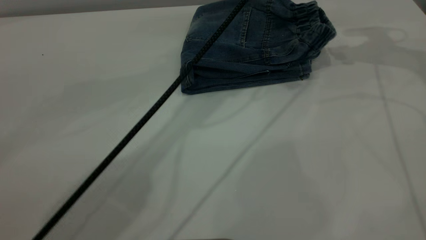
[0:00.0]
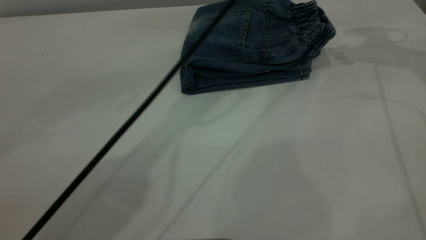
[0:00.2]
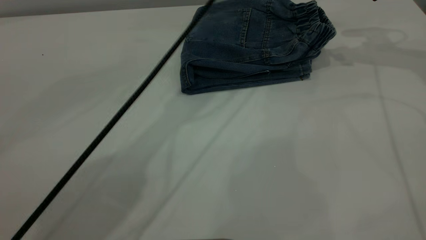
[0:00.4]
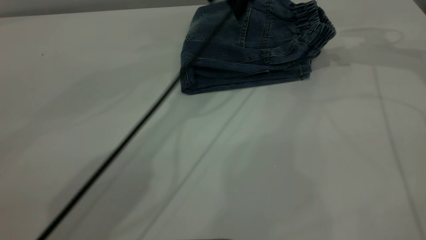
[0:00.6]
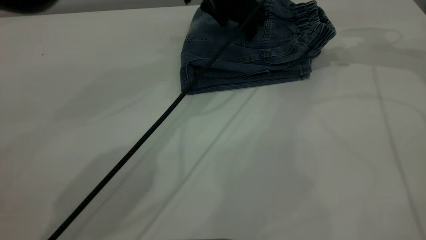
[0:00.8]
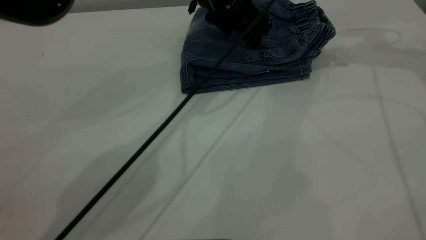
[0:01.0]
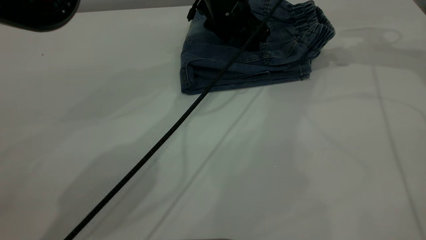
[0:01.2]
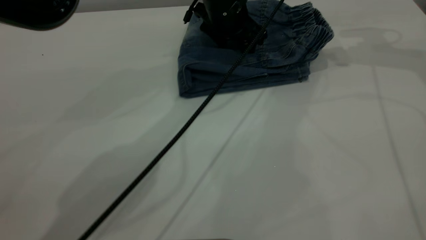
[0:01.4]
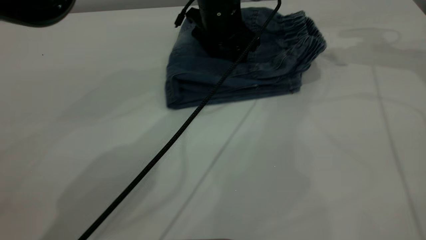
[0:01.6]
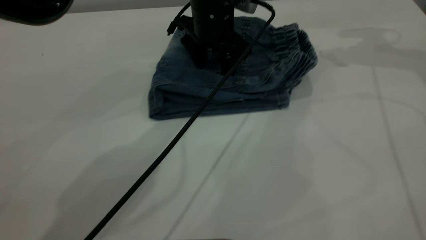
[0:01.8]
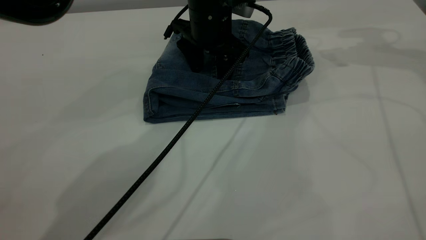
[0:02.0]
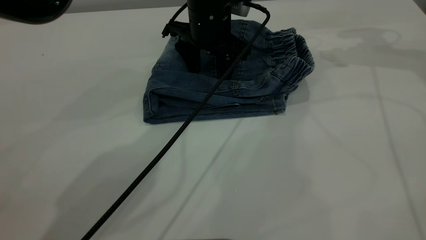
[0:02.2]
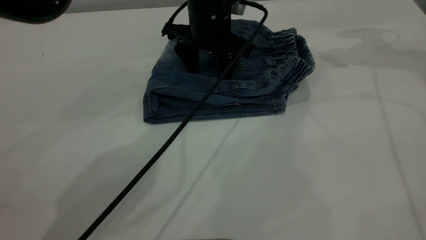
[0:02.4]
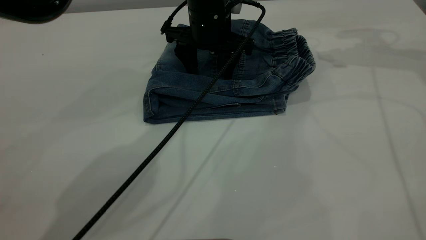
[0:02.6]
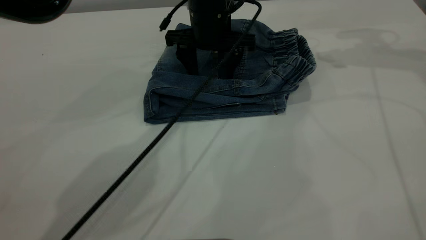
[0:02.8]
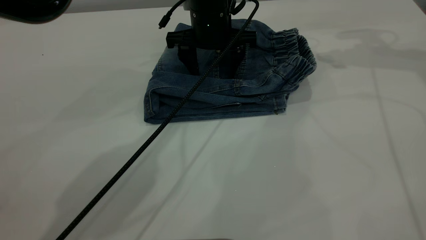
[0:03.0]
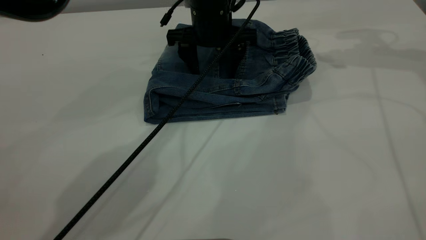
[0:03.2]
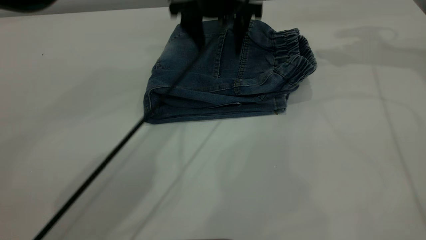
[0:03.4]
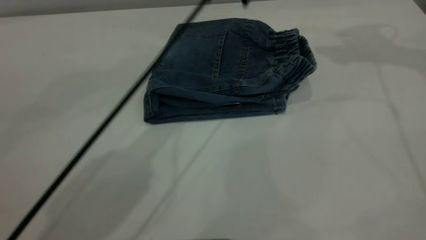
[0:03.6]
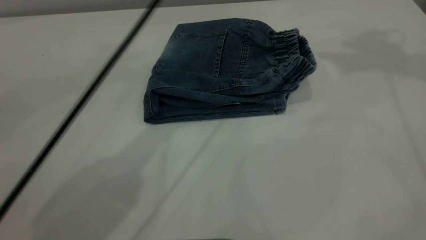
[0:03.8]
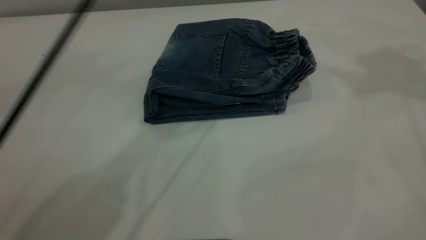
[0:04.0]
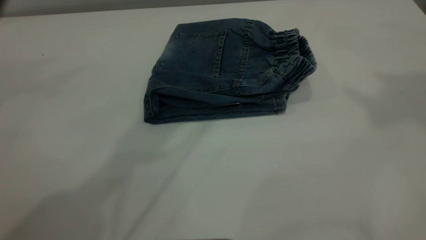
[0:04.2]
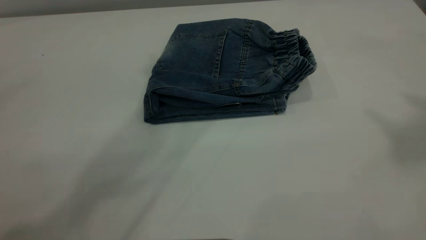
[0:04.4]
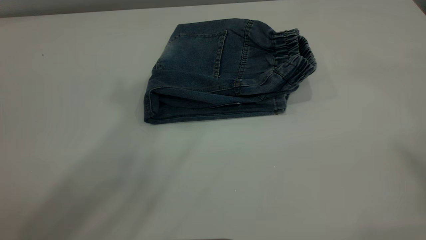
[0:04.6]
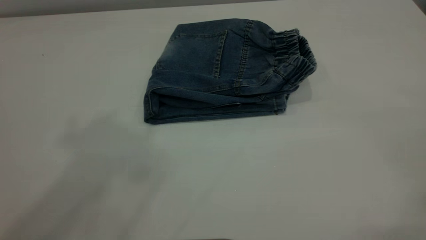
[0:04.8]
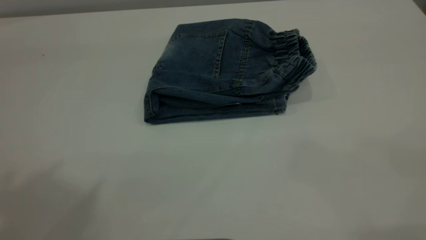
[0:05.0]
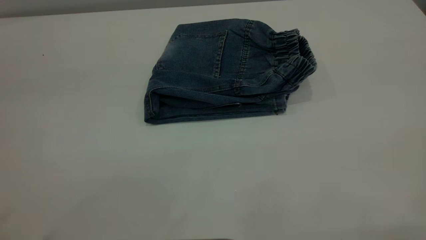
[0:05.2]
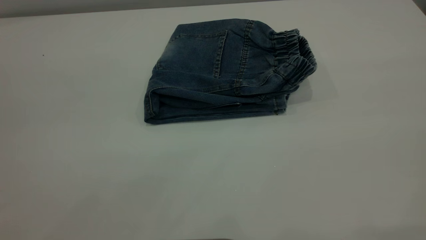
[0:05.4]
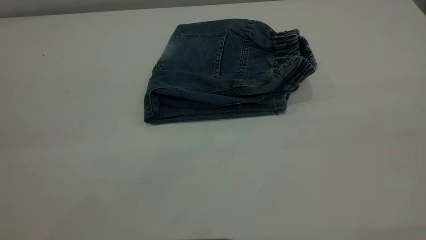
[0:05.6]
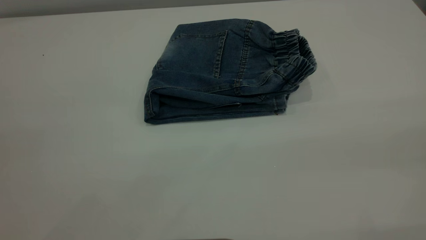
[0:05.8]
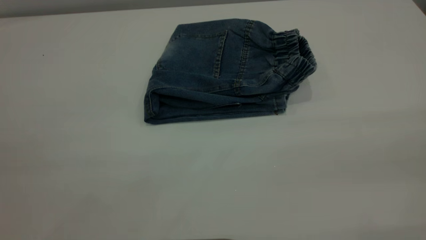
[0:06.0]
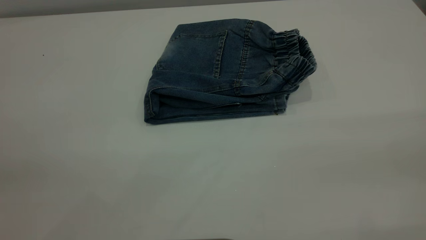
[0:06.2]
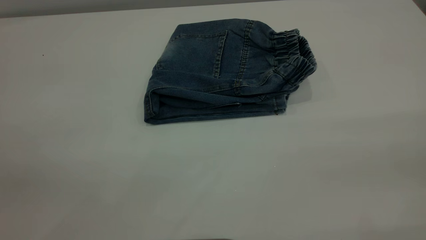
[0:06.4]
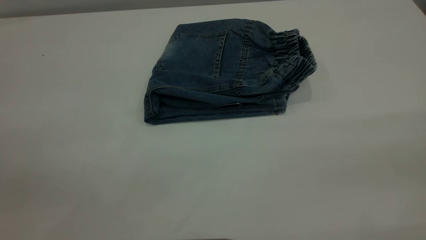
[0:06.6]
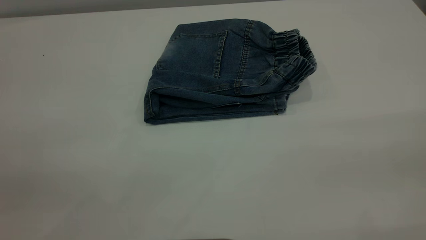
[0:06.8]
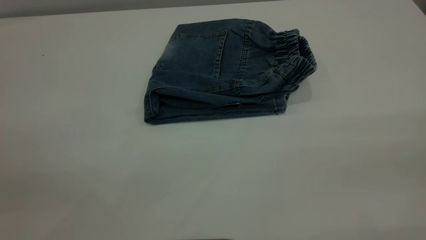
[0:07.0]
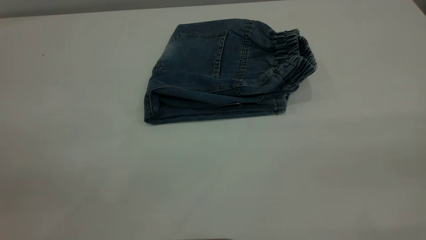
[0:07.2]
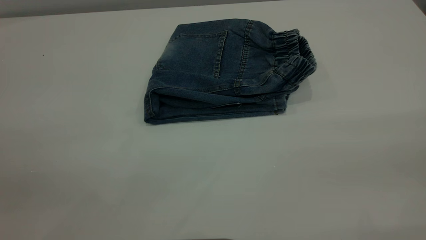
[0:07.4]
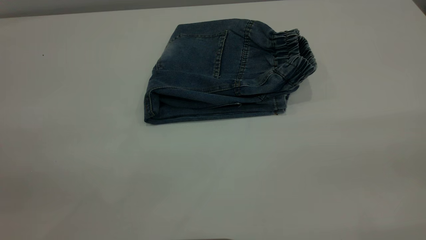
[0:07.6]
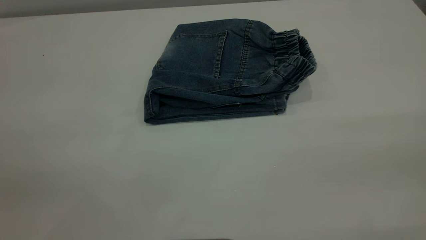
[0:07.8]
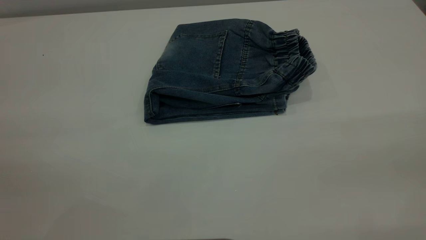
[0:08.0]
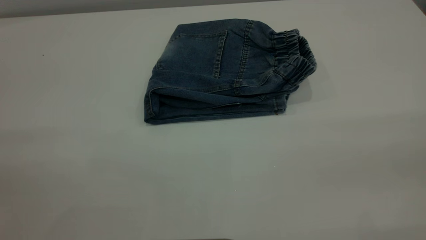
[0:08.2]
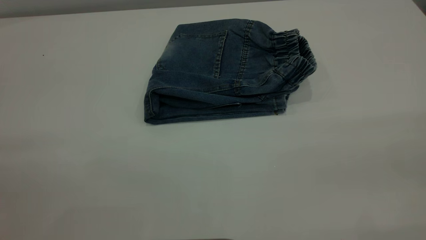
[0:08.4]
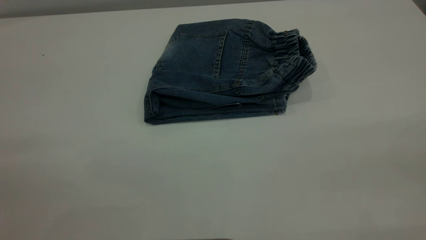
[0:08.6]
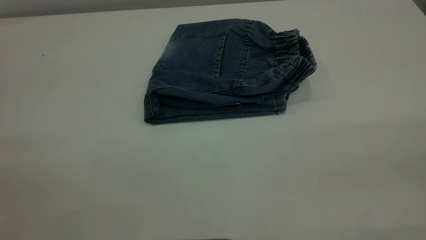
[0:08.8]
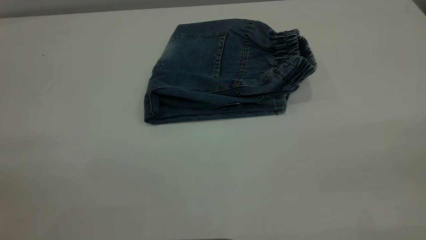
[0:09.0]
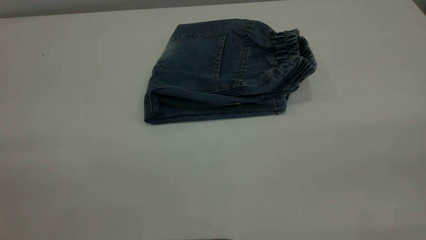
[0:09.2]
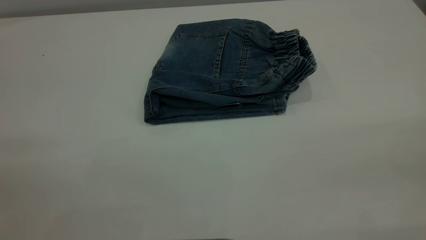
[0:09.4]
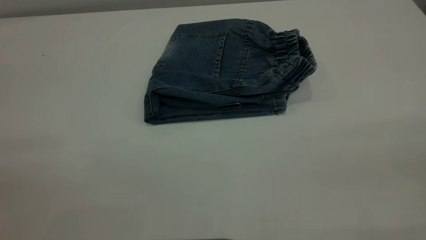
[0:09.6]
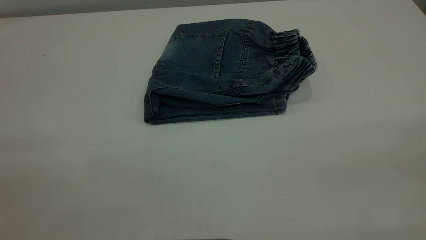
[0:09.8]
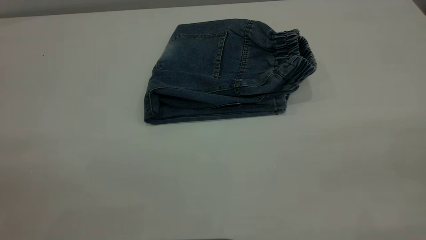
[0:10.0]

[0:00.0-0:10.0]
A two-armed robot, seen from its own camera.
0:00.0 to 0:01.4: The left gripper travels downward by roughly 15 cm.
0:02.8 to 0:04.2: The right gripper is displaced upward and backward by some 35 cm; the left gripper goes roughly 35 cm upward.

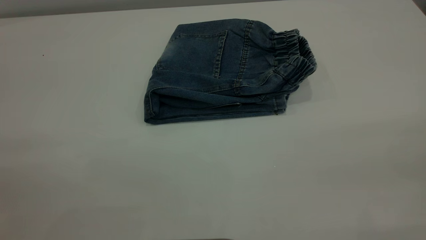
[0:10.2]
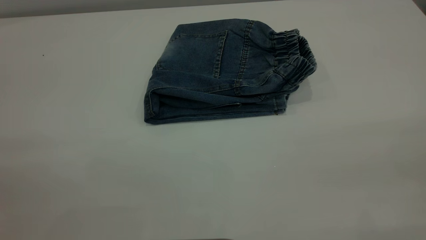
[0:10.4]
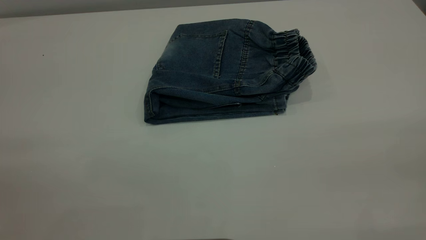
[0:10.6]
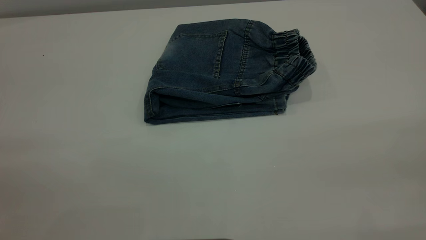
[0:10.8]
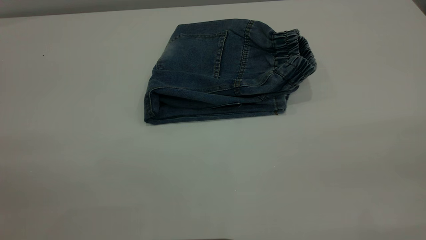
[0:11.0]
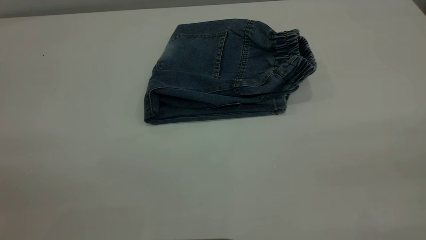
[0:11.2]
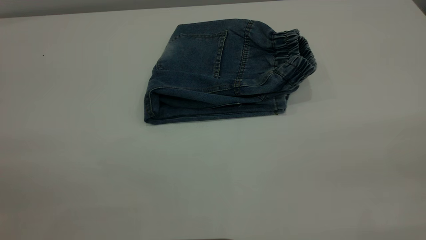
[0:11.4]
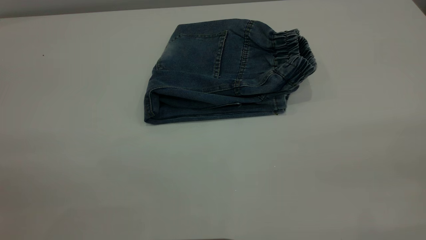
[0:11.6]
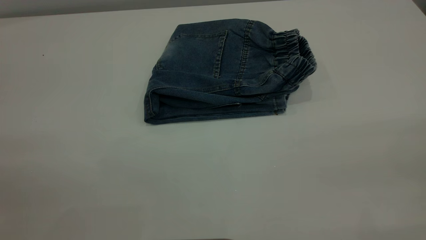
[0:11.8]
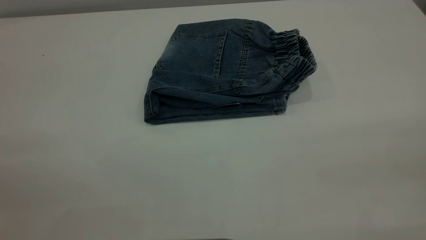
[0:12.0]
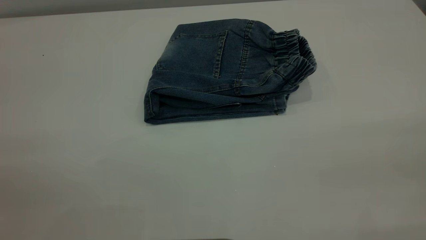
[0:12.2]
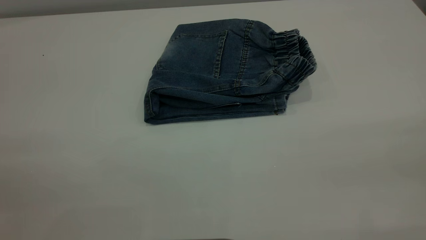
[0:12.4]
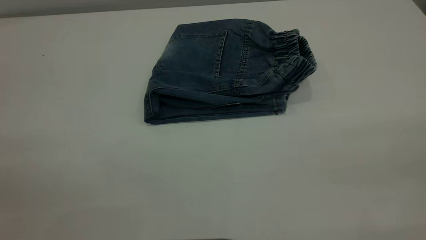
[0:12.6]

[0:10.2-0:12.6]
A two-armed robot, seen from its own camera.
0:11.4 to 0:12.6: Neither gripper changes place.
